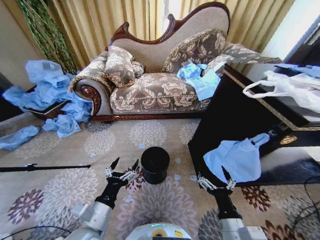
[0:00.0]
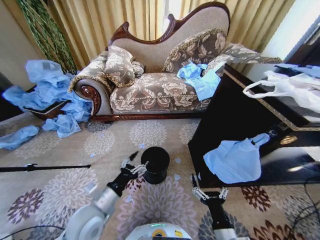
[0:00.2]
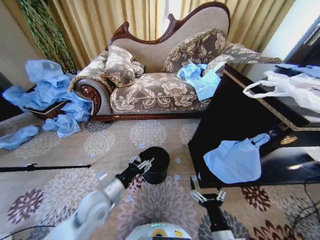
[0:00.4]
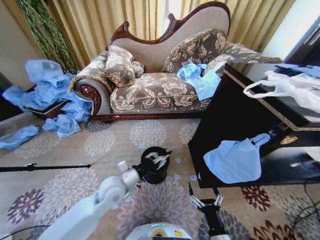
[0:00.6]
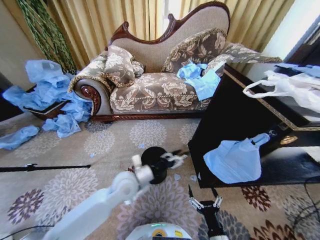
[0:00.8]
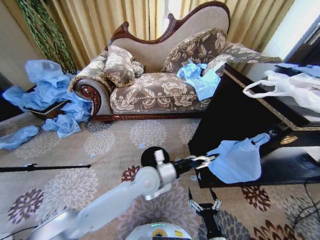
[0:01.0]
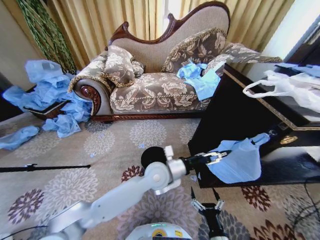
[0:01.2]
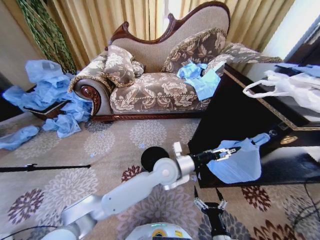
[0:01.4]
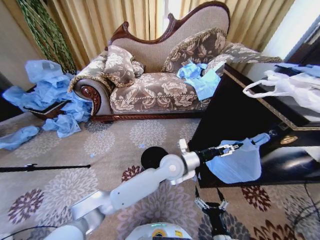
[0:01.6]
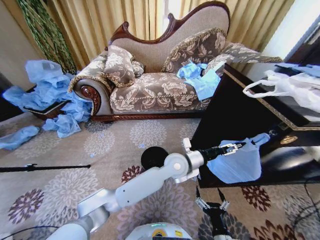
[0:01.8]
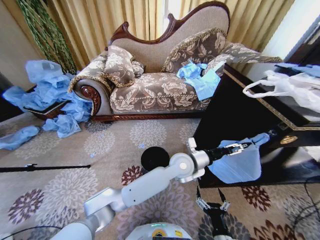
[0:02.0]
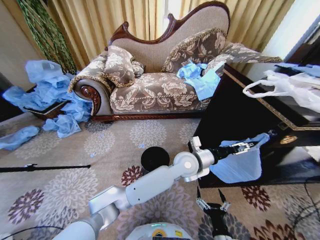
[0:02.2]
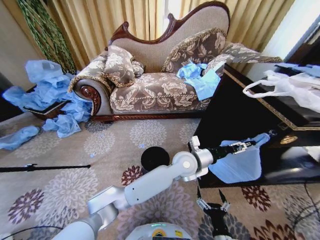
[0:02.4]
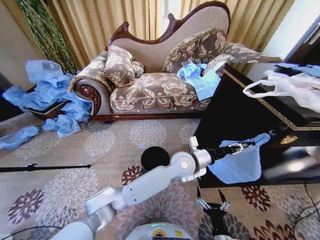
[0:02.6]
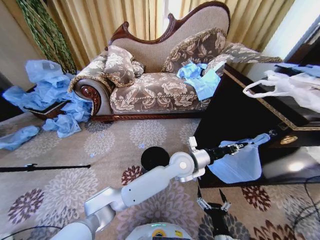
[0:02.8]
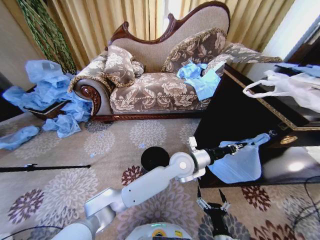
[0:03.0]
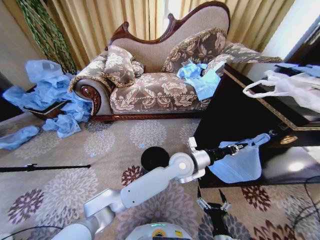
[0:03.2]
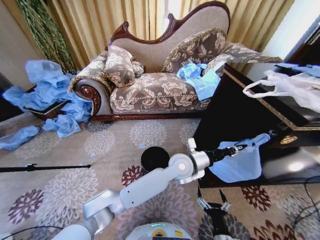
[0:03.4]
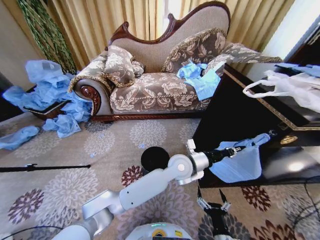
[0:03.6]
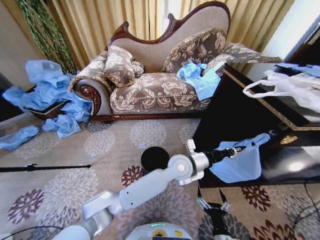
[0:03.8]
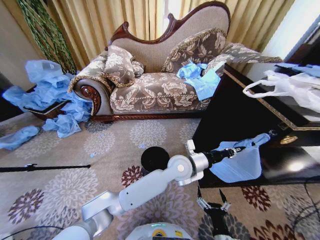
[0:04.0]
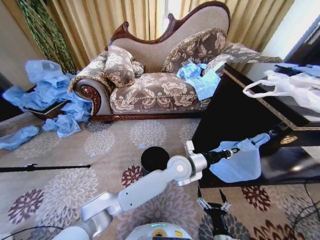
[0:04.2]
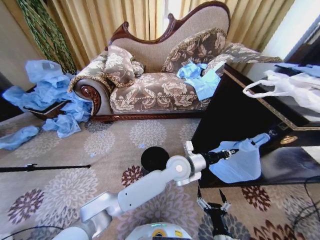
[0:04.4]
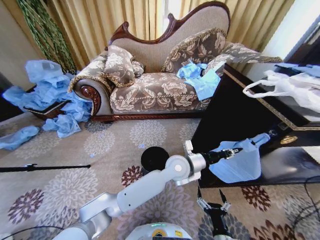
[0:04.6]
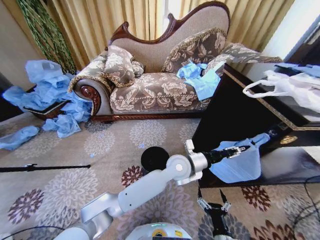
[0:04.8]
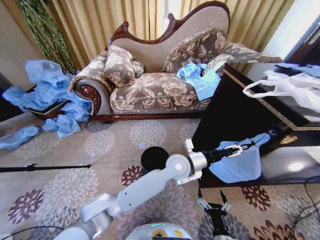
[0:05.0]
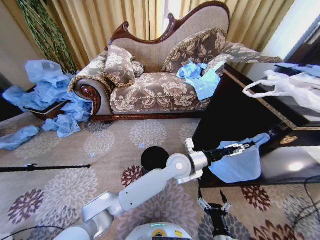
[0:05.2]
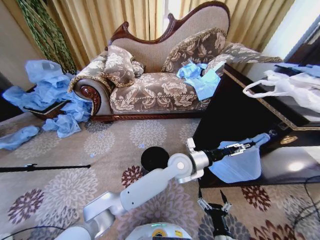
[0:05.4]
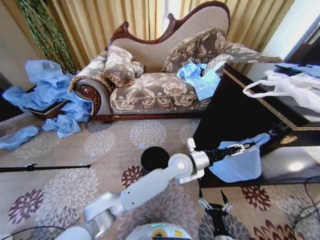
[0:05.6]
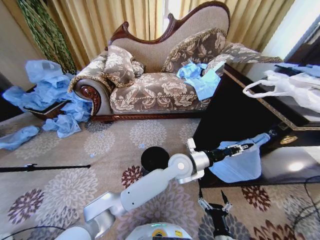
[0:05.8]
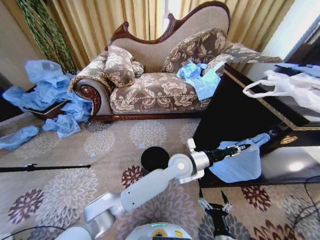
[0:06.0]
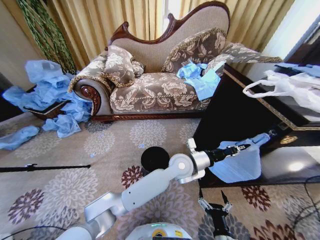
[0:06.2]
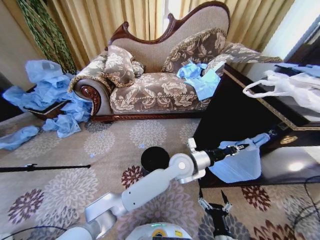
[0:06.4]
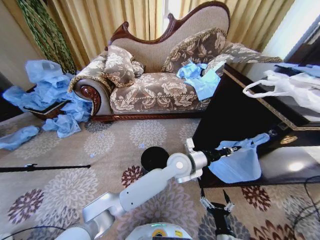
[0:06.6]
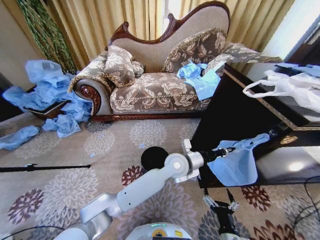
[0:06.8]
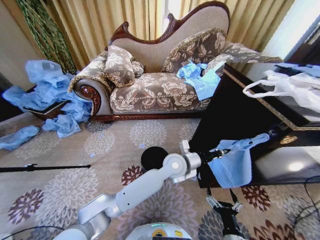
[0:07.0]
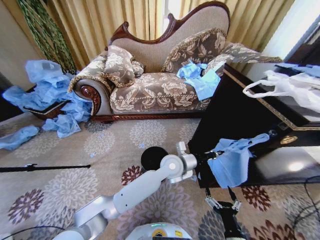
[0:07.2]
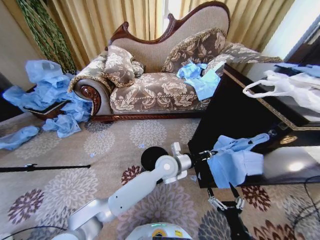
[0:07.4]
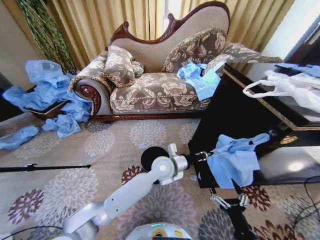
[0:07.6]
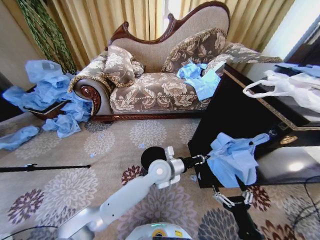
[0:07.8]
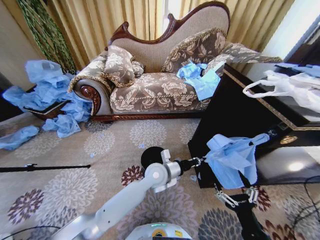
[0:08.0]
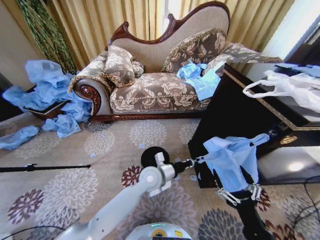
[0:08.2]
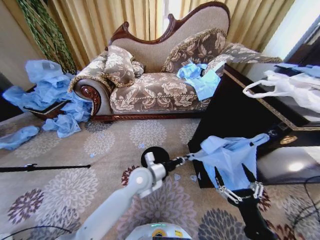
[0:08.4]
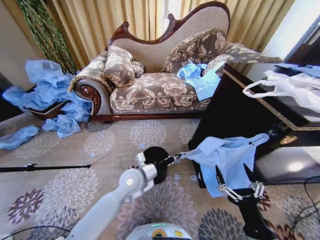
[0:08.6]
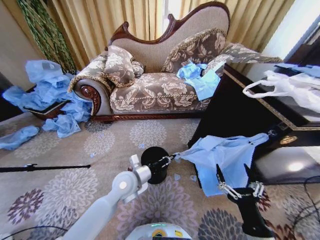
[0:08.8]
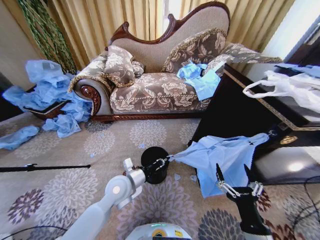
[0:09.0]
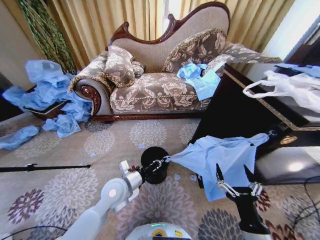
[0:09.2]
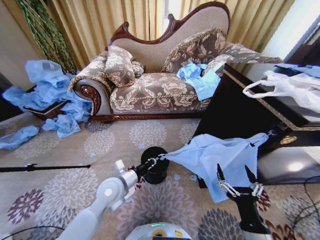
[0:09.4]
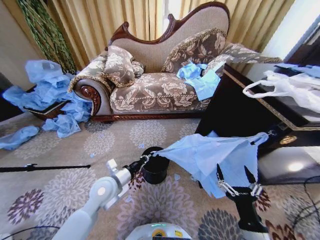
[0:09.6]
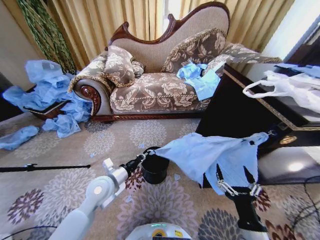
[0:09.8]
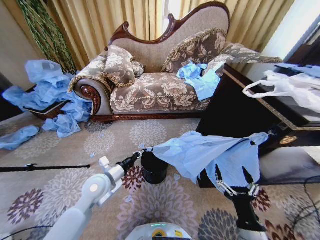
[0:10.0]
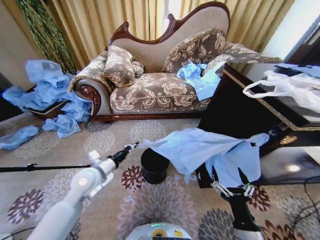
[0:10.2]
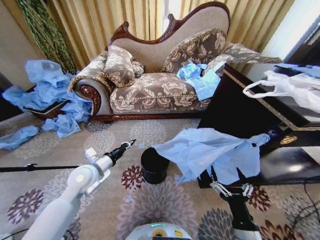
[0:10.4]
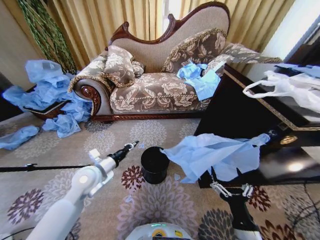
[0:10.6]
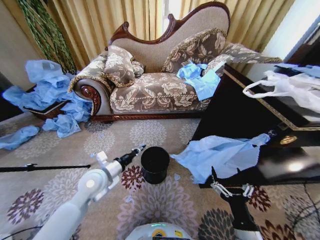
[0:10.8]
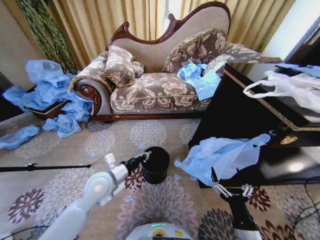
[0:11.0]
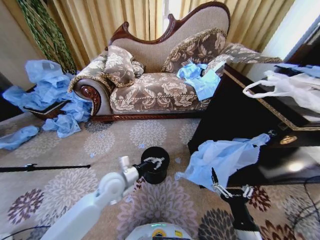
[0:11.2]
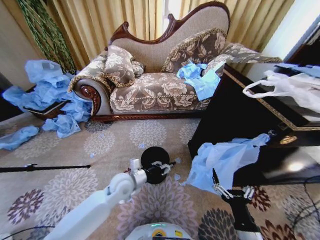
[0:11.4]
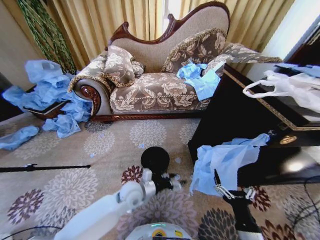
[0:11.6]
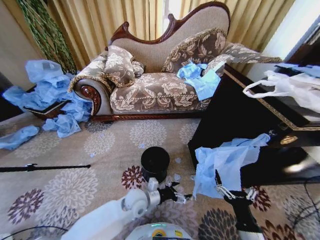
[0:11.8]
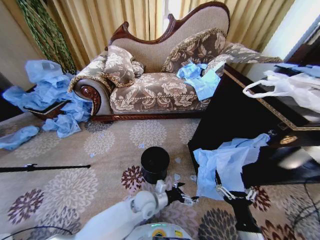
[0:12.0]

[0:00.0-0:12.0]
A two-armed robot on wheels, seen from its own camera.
Task of the whole recording: Place a garbage bag over the trash bin.
0:01.6 to 0:03.0: The left gripper closes its fingers.
0:03.0 to 0:04.4: There are only small adjustments of the grippers.
0:04.4 to 0:06.0: The left gripper opens, then closes once more.
0:06.0 to 0:07.6: The left gripper heads to the left, covering roughly 5 cm, while the right gripper is displaced to the right by roughly 5 cm.
0:07.6 to 0:09.0: The left gripper travels to the left and backward by some 20 cm. Meanwhile the right gripper heads upward, covering approximately 5 cm.
0:09.0 to 0:10.4: The left gripper goes some 10 cm to the left.
0:10.4 to 0:12.0: The left gripper shifts roughly 25 cm to the right and downward, and opens.

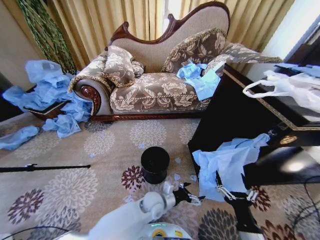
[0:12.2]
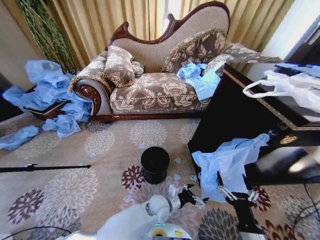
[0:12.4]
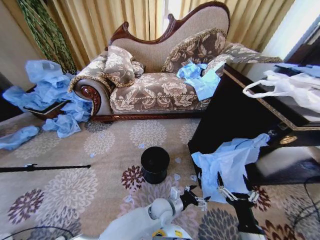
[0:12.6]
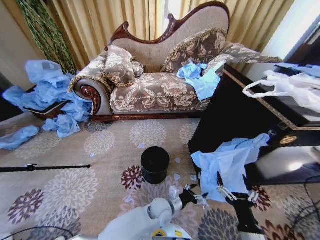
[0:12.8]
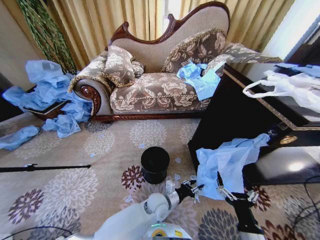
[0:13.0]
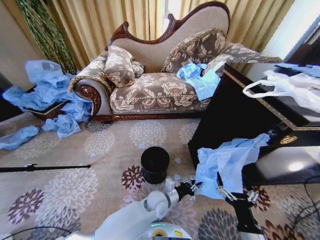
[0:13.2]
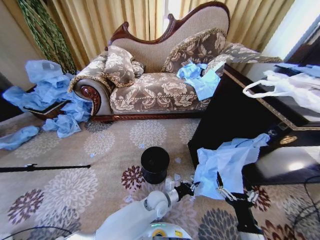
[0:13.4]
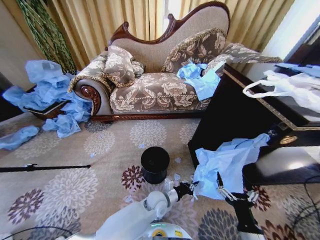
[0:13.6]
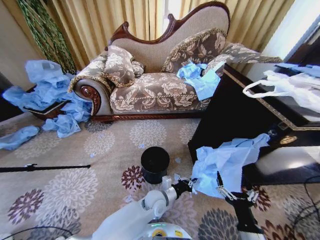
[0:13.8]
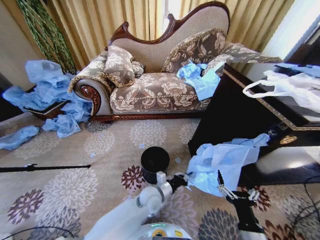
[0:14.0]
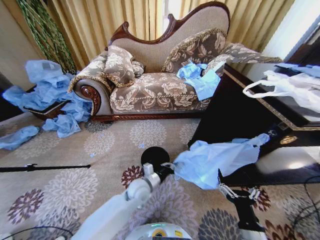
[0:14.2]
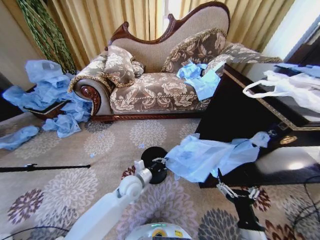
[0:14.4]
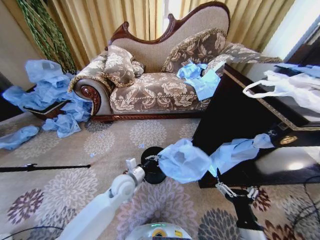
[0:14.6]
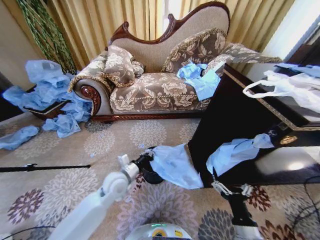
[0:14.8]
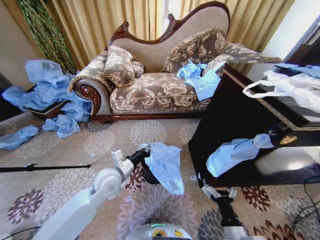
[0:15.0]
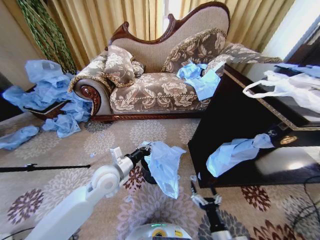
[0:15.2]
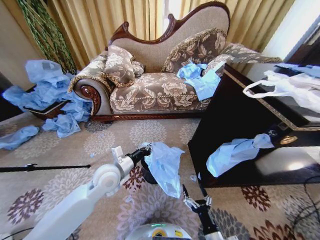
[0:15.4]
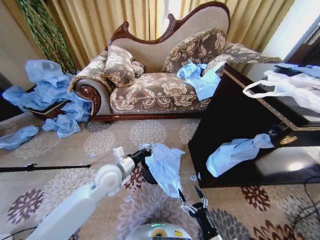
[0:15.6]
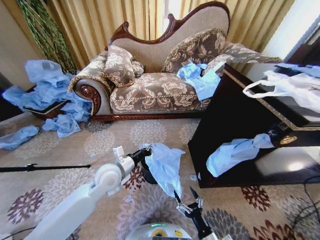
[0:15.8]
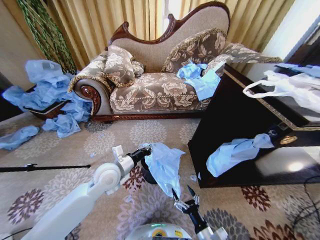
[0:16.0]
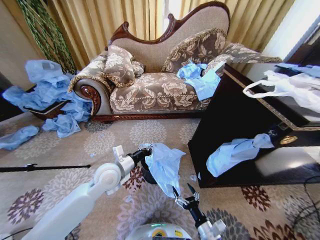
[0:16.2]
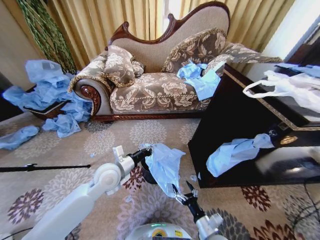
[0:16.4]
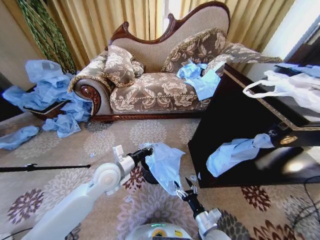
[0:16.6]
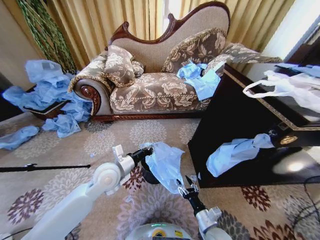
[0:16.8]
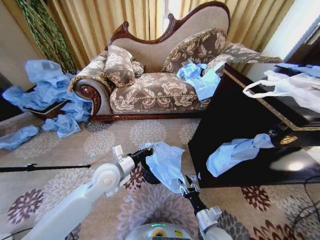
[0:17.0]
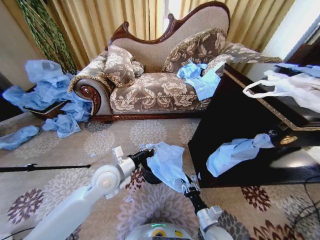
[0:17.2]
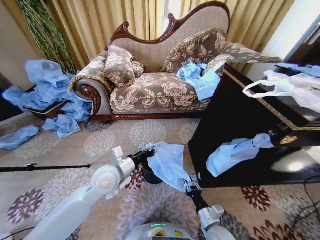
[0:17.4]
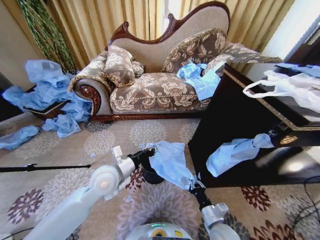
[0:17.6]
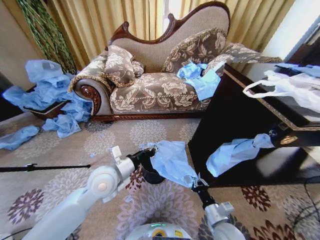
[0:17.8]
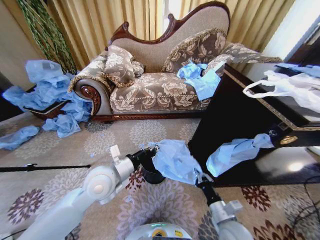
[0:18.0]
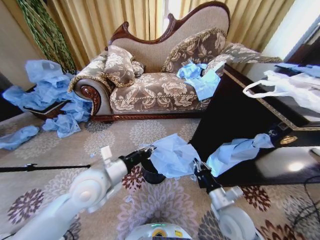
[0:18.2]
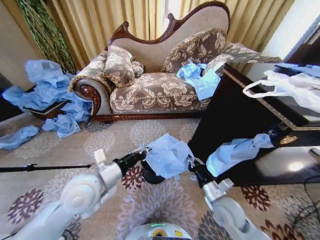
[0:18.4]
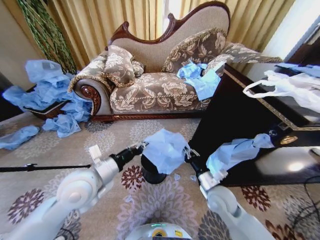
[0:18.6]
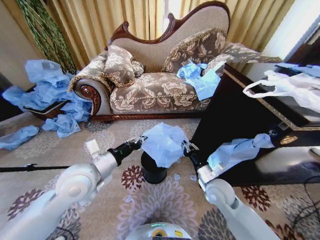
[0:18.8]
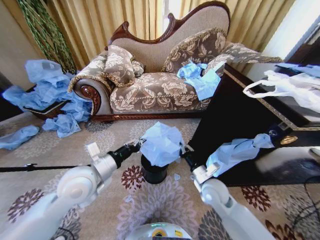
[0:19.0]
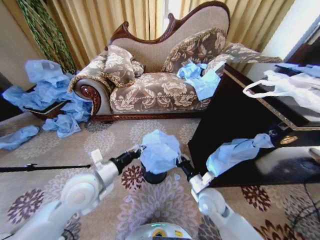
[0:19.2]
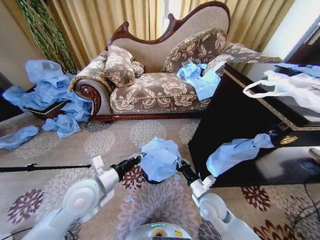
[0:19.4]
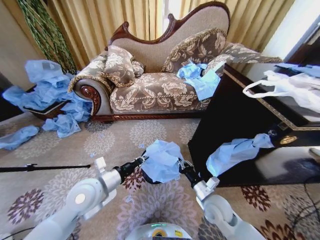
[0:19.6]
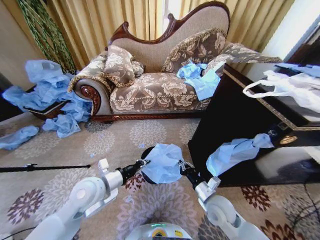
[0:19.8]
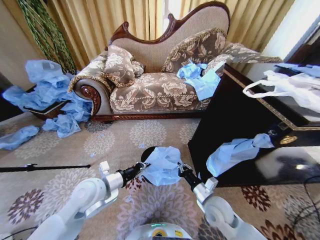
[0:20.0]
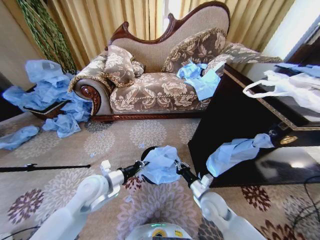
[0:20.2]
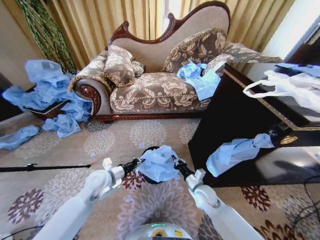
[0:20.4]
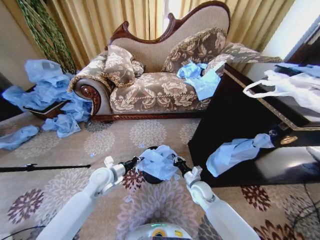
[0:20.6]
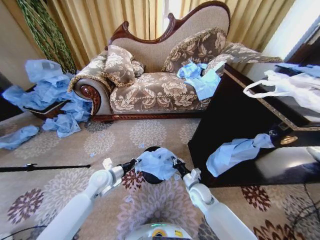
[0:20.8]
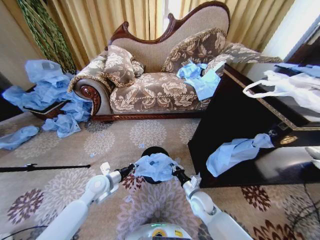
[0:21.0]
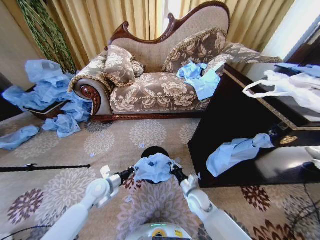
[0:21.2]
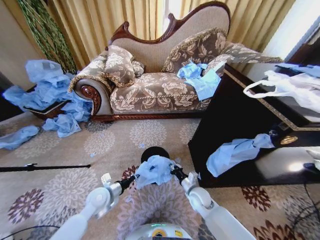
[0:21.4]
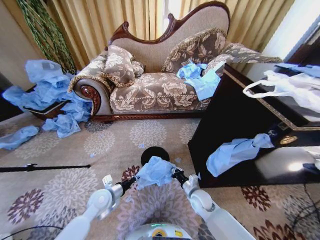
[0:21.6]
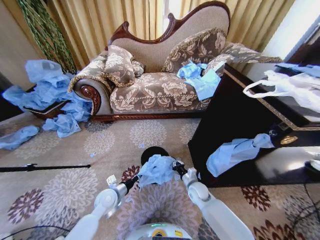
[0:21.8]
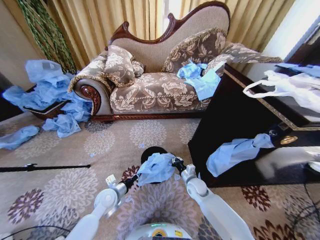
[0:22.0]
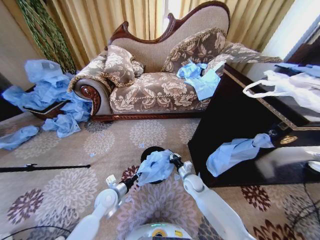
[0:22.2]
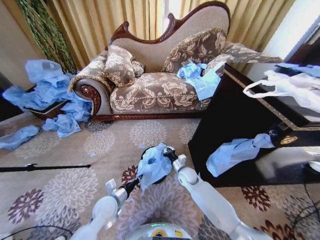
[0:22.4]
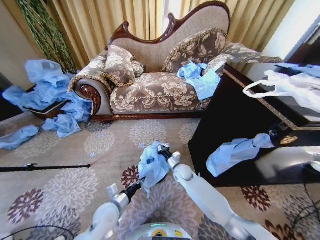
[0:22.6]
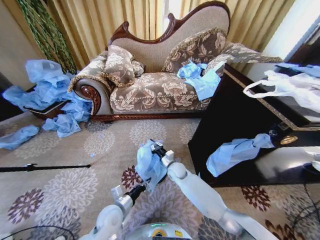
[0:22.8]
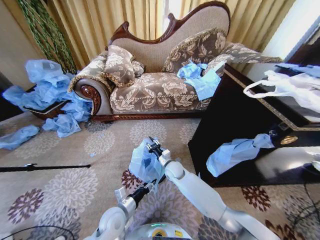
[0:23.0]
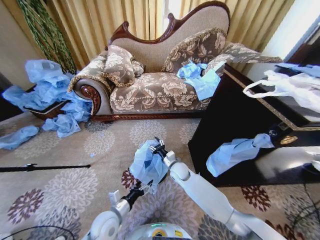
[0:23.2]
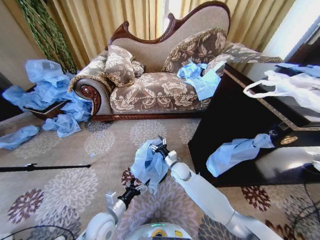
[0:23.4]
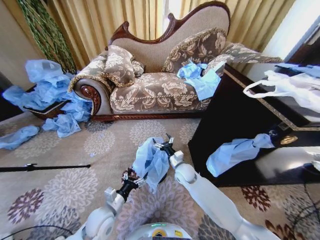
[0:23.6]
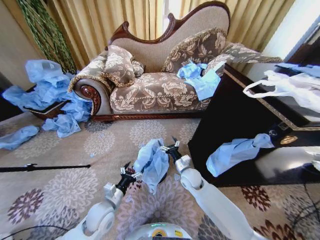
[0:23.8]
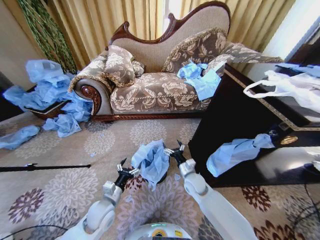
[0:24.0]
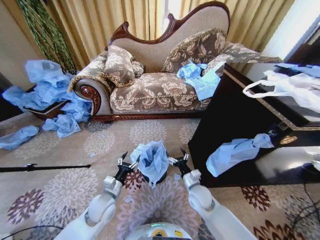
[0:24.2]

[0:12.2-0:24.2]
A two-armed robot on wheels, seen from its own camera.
Task of the whole recording: Place a garbage bag over the trash bin.
0:12.2 to 0:13.8: The left gripper closes up.
0:13.8 to 0:15.2: The right gripper moves downward, roughly 5 cm. The left gripper moves to the left and upward, roughly 25 cm.
0:15.2 to 0:16.6: The right gripper goes approximately 5 cm forward.
0:16.6 to 0:18.2: The right gripper is displaced upward and forward by some 10 cm, and closes up. Meanwhile the left gripper is displaced upward and backward by some 10 cm.
0:18.2 to 0:19.8: The left gripper travels downward by some 5 cm.
0:19.8 to 0:21.2: The right gripper shifts approximately 10 cm downward and forward. The left gripper is displaced downward by roughly 15 cm.
0:21.2 to 0:22.6: The left gripper travels backward and to the right by roughly 10 cm; the right gripper goes approximately 15 cm forward and to the left.
0:22.6 to 0:24.2: The right gripper shifts some 15 cm backward and to the right, and opens its fingers; the left gripper opens.
